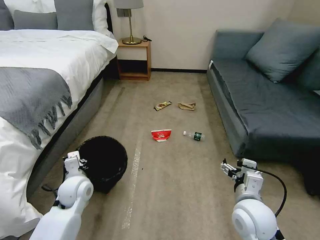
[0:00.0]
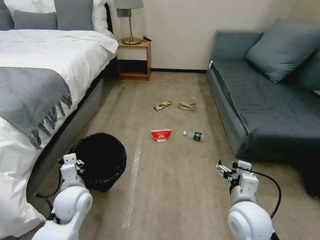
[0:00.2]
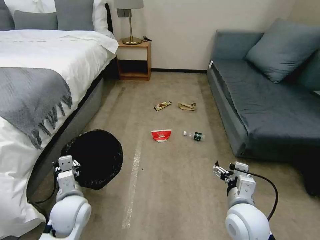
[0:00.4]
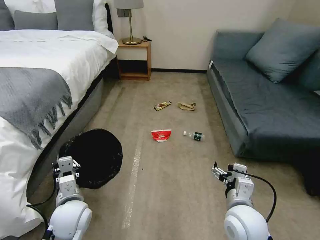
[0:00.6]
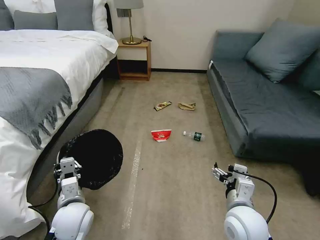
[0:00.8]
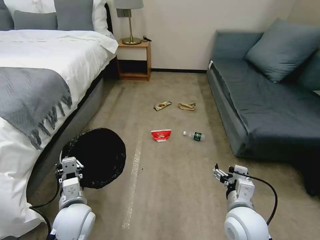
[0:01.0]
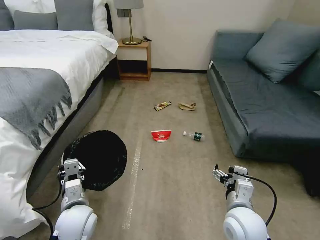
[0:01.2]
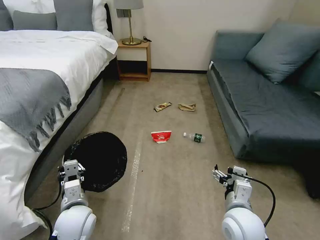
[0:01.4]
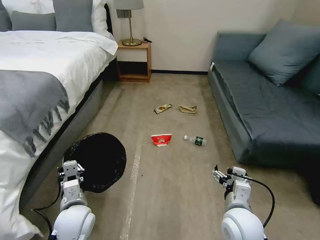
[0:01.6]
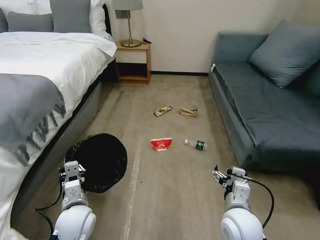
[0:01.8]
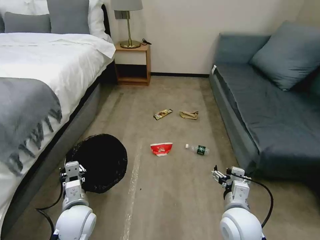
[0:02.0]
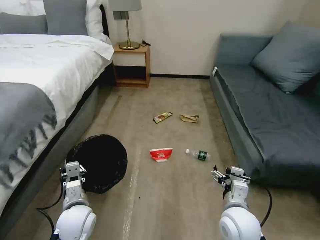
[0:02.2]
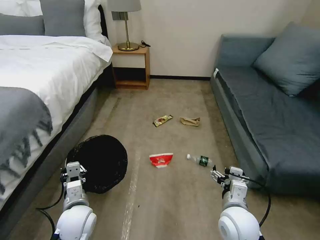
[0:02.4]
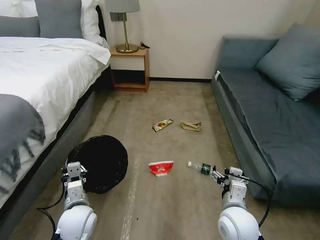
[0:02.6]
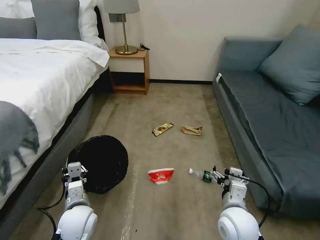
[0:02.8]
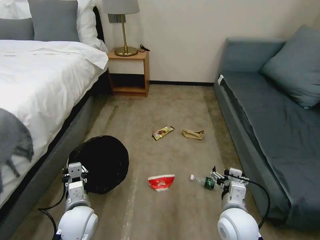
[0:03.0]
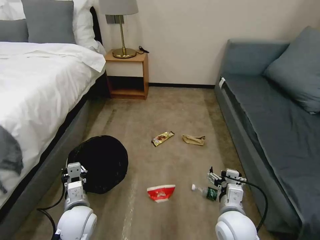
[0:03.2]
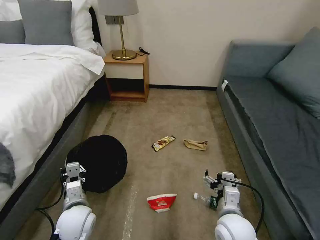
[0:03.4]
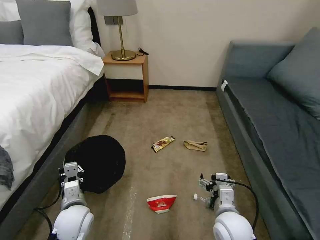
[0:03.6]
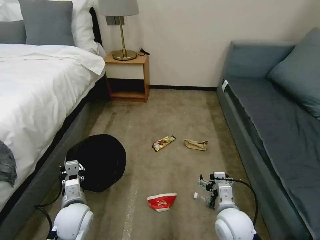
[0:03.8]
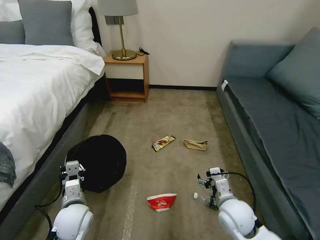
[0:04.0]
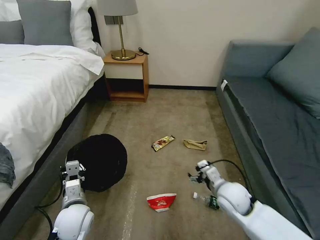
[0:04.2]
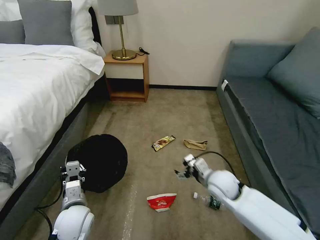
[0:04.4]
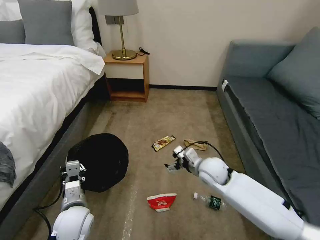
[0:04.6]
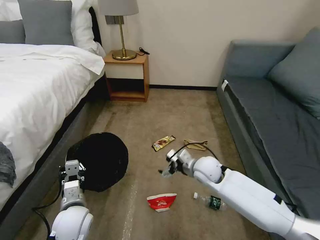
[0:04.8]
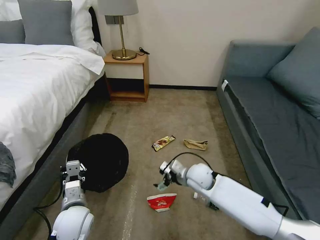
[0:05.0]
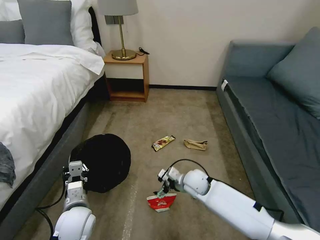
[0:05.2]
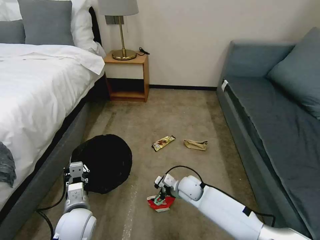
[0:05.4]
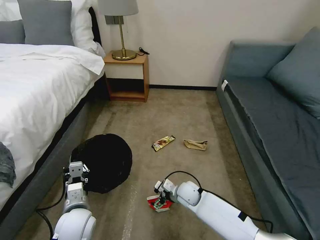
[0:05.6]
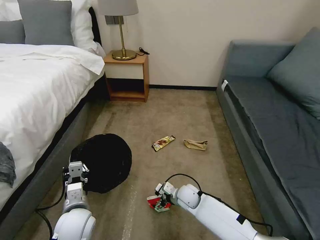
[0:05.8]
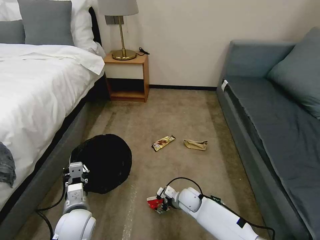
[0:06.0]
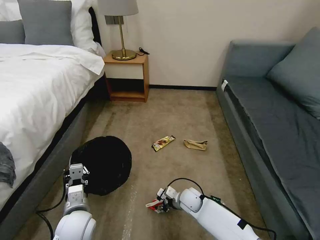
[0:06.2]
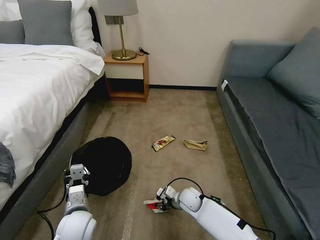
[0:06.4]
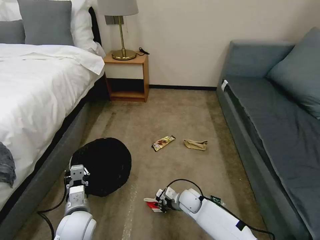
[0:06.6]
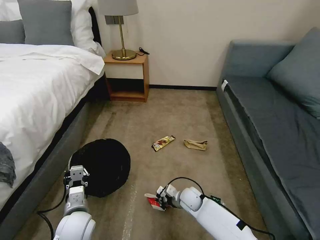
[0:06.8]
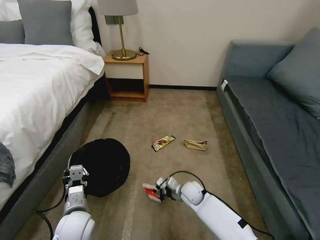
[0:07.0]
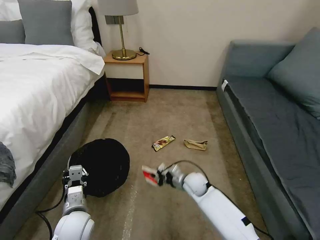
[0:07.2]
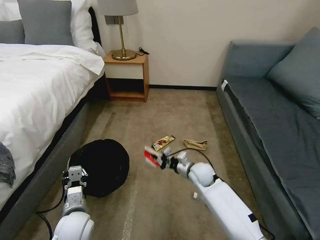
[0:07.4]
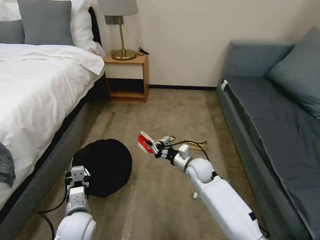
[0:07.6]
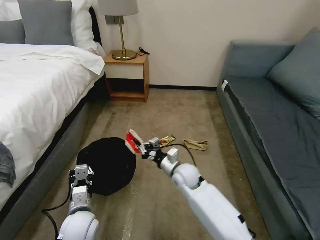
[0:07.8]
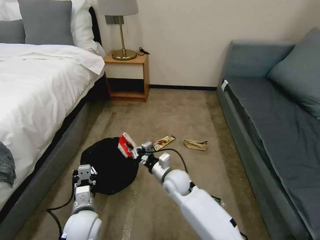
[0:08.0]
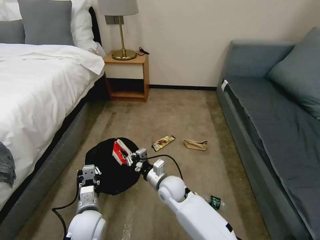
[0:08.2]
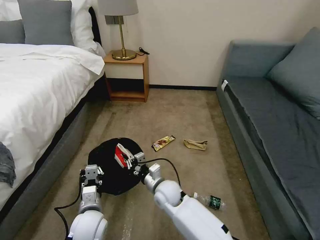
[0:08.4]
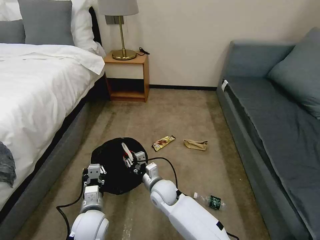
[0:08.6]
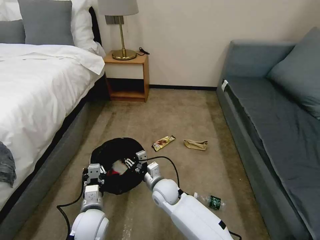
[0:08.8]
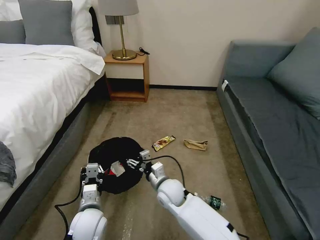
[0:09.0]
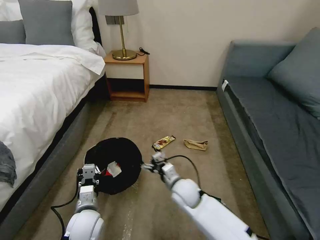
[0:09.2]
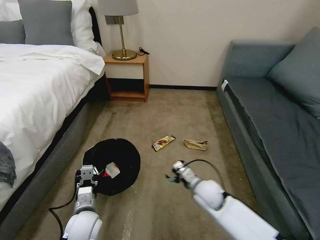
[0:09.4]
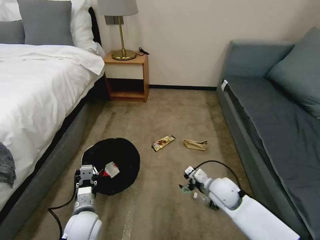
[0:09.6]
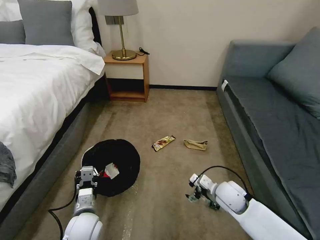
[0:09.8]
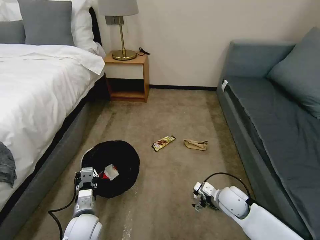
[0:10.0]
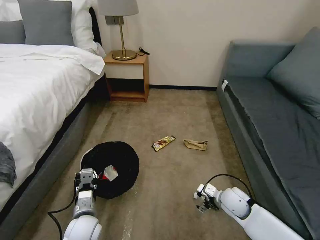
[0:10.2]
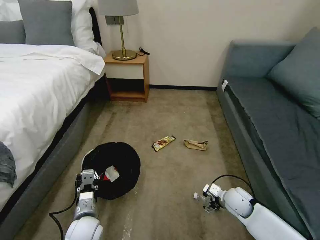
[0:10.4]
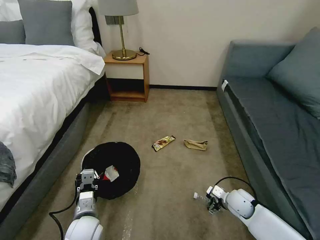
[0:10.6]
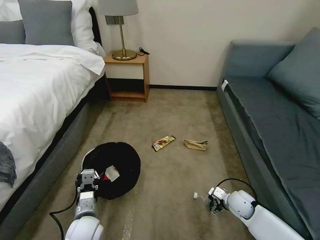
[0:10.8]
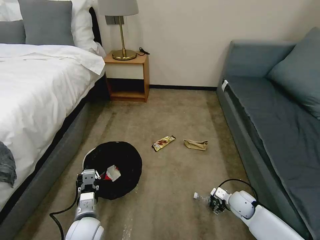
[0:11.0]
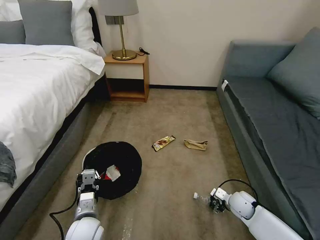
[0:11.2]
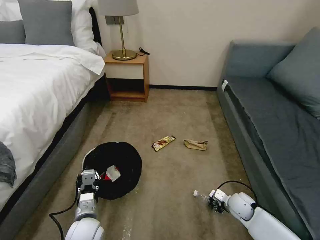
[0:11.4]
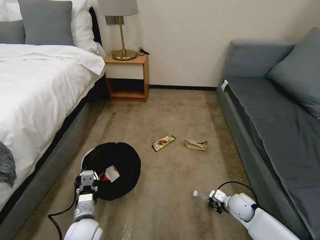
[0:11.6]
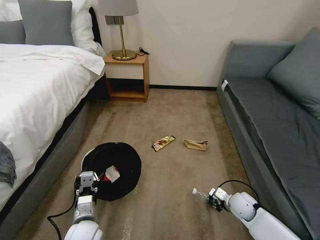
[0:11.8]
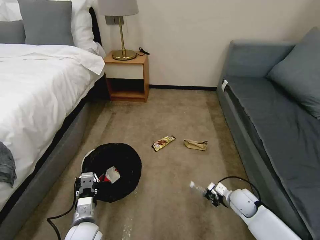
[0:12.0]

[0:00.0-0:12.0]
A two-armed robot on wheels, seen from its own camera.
Task of the whole recording: Pick up the trash bin, then pick up the garbage on the floor and place it into the trash bin.
0:00.0 to 0:01.6: The left gripper heads backward, covering about 10 cm.
0:03.0 to 0:04.4: The right gripper goes roughly 15 cm forward.
0:04.4 to 0:06.0: The right gripper travels downward and to the left by roughly 20 cm.
0:06.0 to 0:07.6: The right gripper travels upward and forward by about 15 cm, and closes its fingers.
0:07.6 to 0:09.0: The right gripper moves to the left and backward, approximately 15 cm, and opens its fingers.
0:09.0 to 0:10.4: The right gripper shifts some 25 cm to the right, and opens.
0:10.4 to 0:12.0: The right gripper closes its fingers.

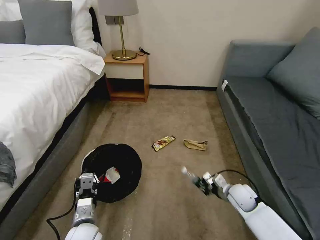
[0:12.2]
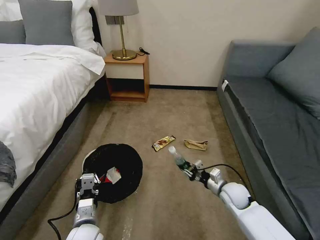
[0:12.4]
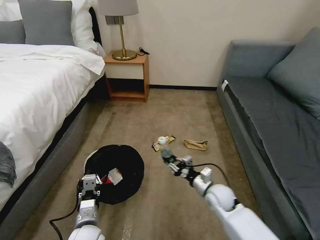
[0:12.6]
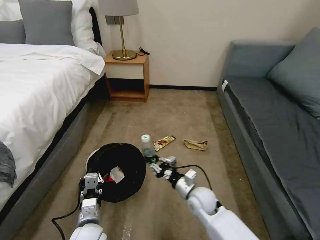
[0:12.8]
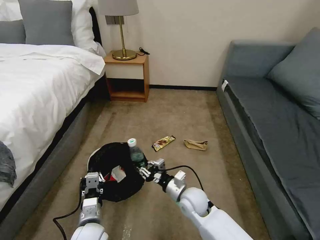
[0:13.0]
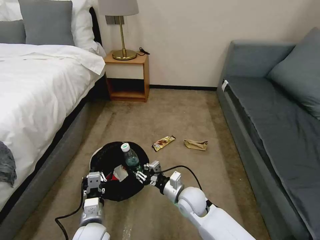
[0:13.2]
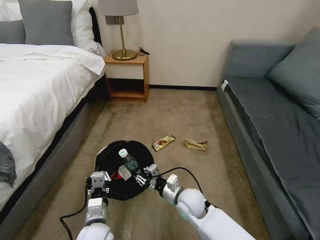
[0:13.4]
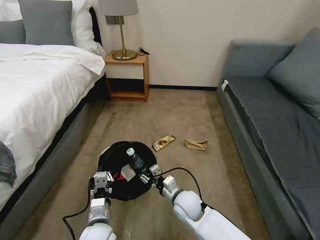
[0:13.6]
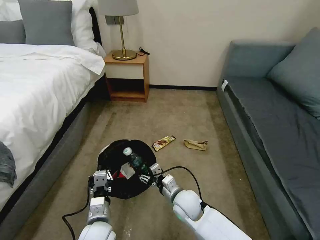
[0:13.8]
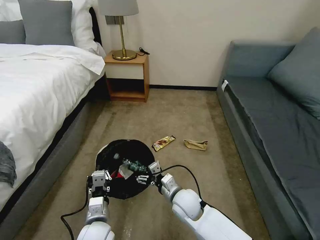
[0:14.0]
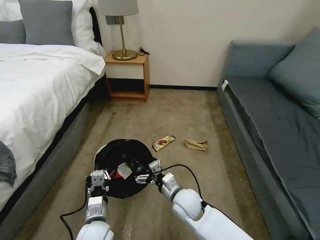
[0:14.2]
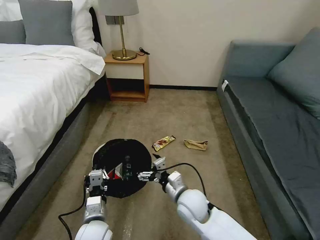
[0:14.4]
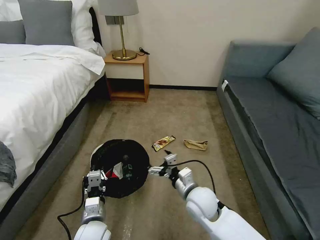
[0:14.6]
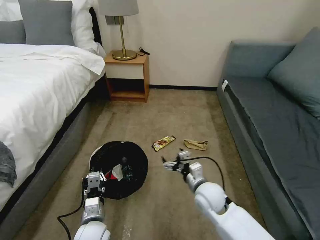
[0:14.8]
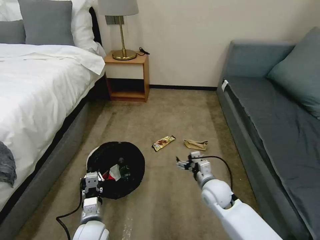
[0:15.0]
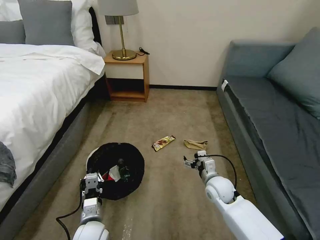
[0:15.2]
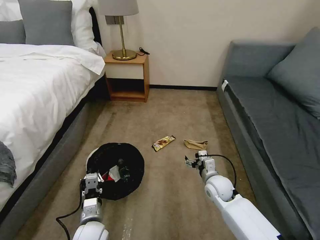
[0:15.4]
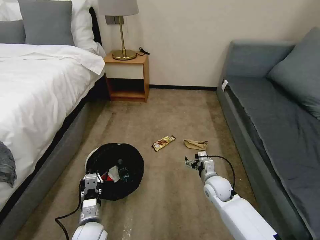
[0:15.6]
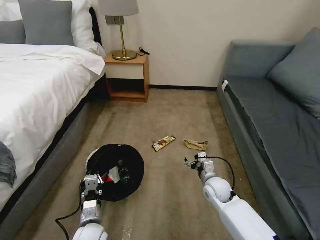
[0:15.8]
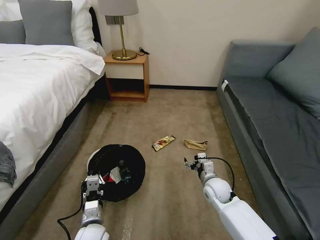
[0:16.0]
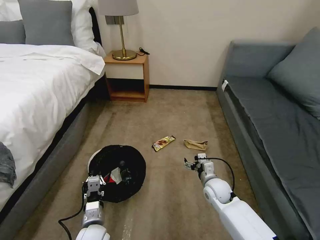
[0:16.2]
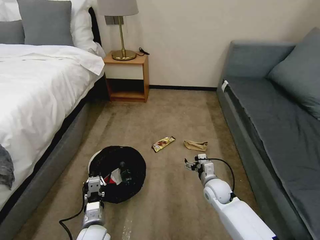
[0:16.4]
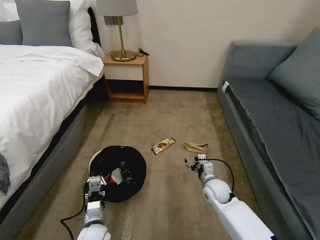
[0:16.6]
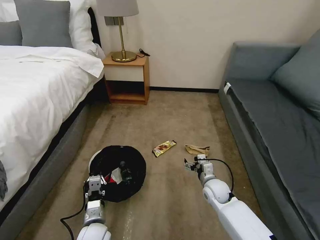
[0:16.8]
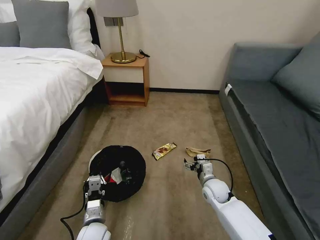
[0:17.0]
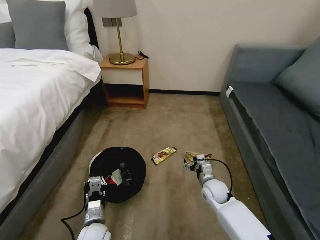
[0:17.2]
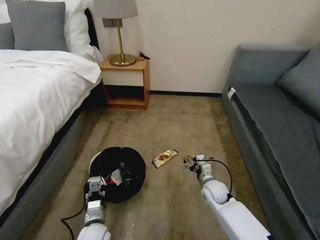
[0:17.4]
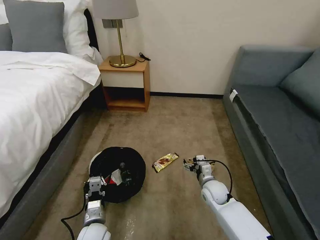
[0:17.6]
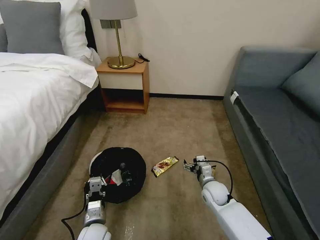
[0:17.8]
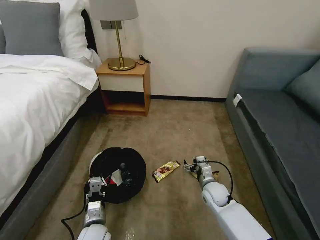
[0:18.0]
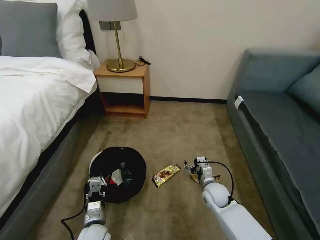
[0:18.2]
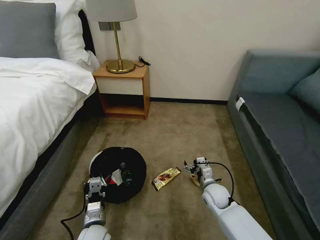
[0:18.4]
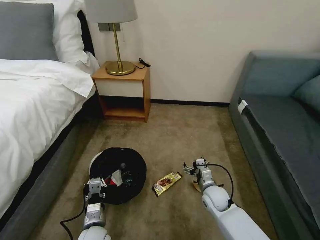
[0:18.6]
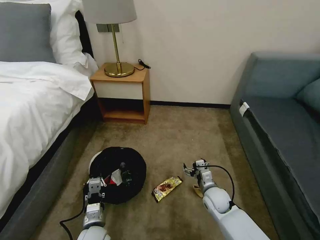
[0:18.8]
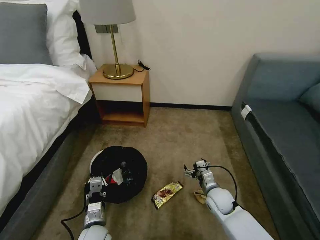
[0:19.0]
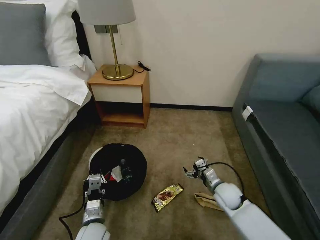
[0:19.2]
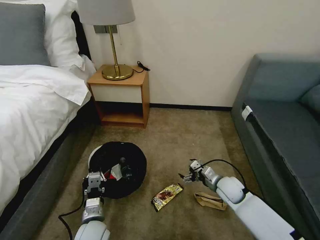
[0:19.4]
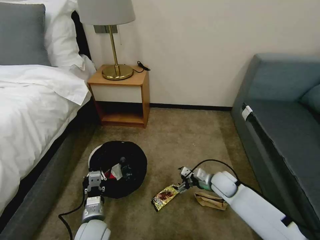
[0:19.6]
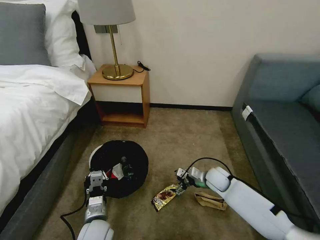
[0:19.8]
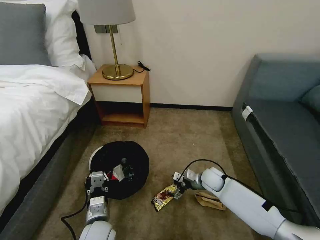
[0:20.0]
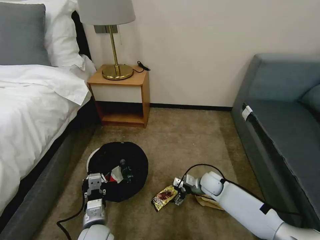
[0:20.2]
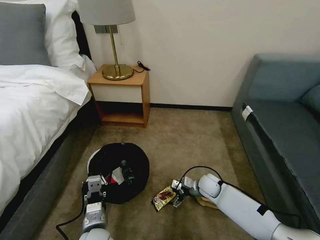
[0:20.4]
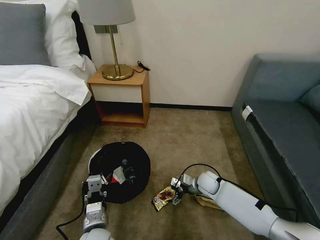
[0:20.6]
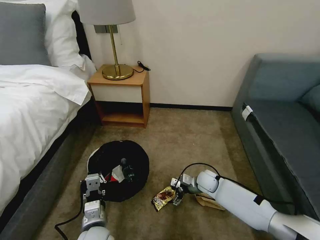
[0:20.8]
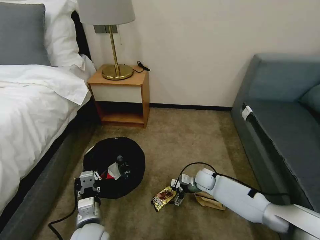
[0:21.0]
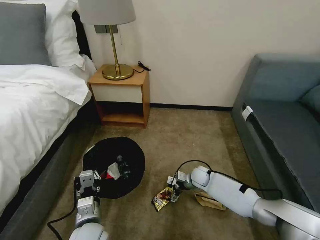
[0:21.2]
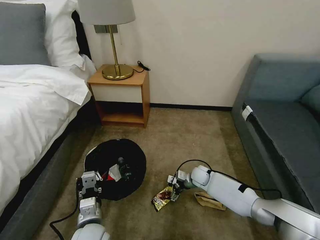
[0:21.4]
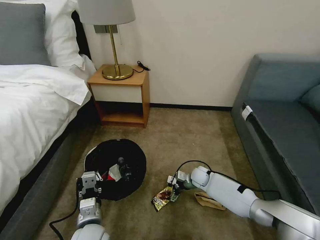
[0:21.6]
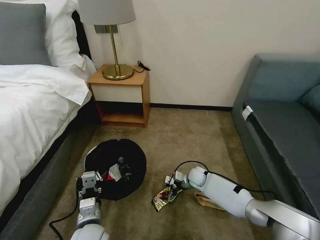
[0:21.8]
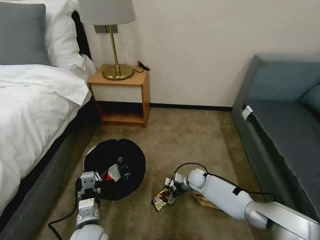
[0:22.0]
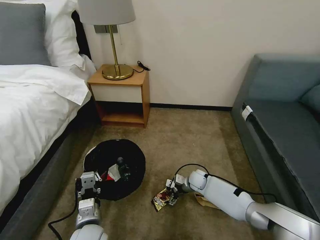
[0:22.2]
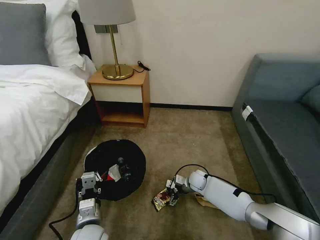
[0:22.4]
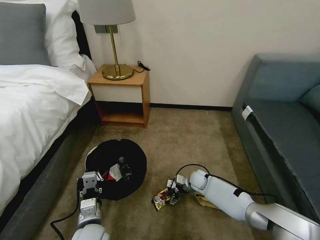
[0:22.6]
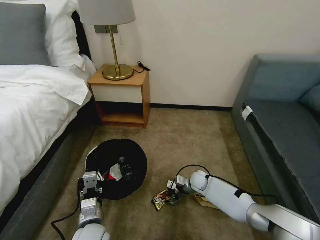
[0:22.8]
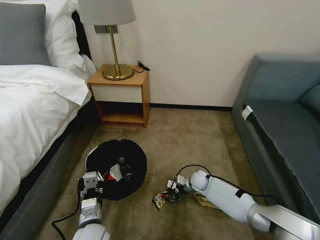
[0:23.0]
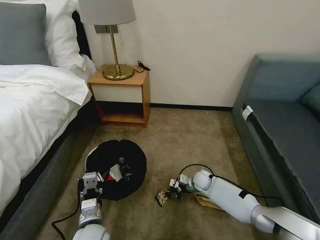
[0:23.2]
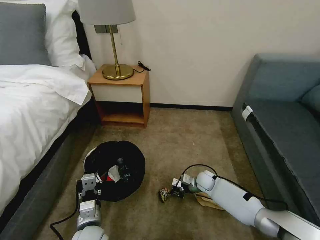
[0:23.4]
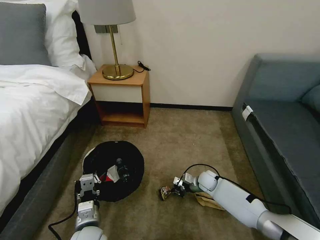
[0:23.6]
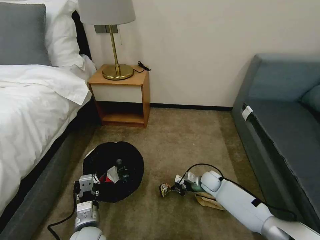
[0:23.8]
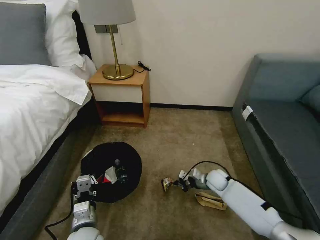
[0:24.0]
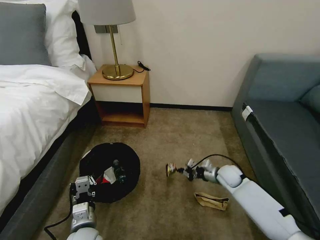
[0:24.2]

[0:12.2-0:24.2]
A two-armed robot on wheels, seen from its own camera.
Task of the whole recording: Pick up the trash bin, then pick up the garbage on the floor and place it into the trash bin.
0:12.2 to 0:13.8: The right gripper moves to the left, approximately 20 cm.
0:13.8 to 0:15.2: The right gripper is displaced to the right by some 15 cm, and opens.
0:15.2 to 0:16.6: There are only small adjustments of the grippers.
0:18.2 to 0:19.8: The right gripper moves approximately 5 cm.
0:19.8 to 0:21.2: The left gripper moves upward, some 5 cm, while the right gripper moves downward, forward and to the left, about 10 cm.
0:21.2 to 0:22.6: The grippers move only a little.
0:22.6 to 0:24.2: The right gripper heads to the right and upward, covering roughly 15 cm, and closes its fingers.
